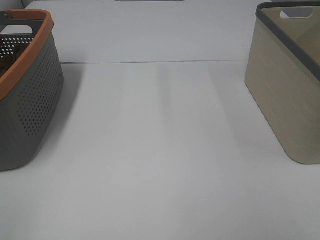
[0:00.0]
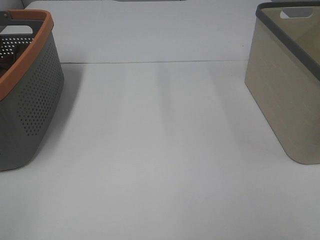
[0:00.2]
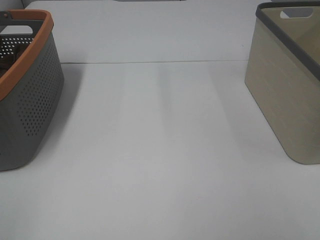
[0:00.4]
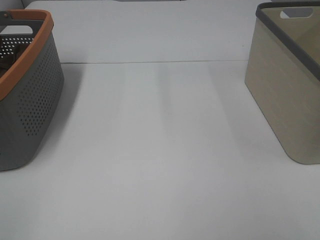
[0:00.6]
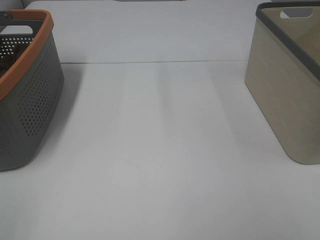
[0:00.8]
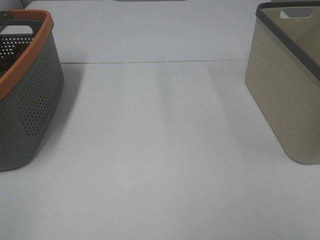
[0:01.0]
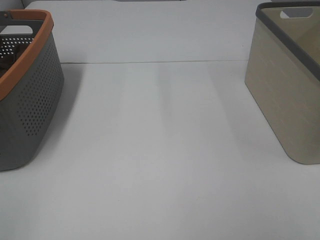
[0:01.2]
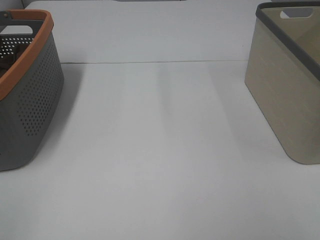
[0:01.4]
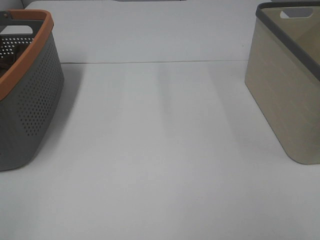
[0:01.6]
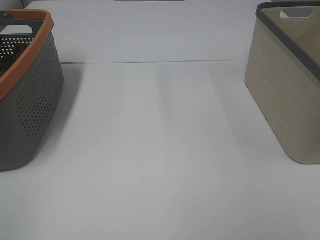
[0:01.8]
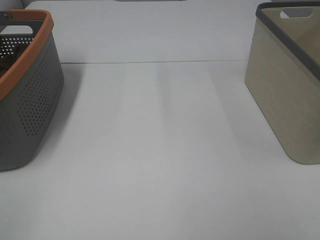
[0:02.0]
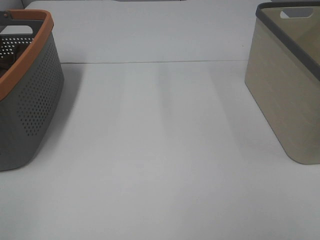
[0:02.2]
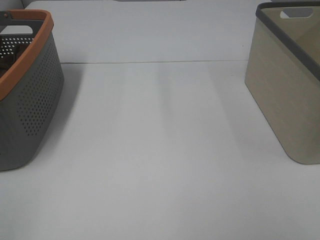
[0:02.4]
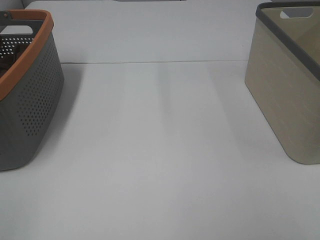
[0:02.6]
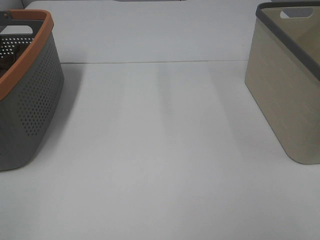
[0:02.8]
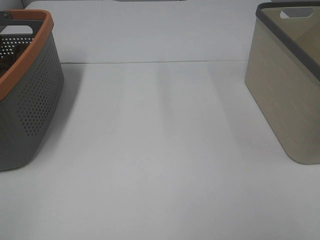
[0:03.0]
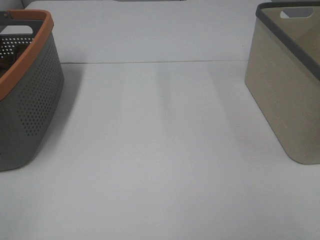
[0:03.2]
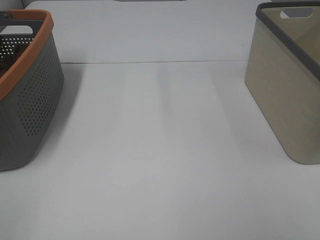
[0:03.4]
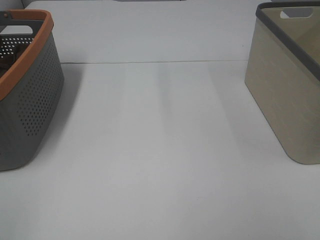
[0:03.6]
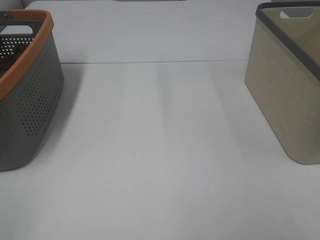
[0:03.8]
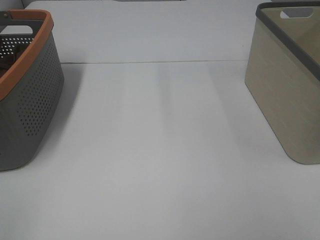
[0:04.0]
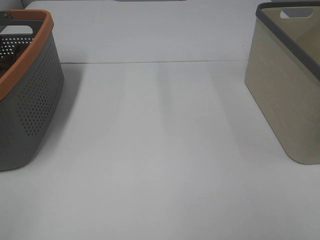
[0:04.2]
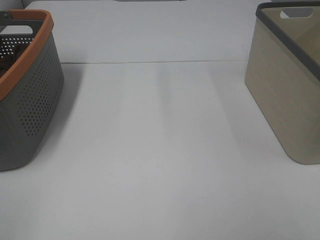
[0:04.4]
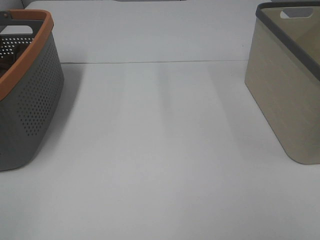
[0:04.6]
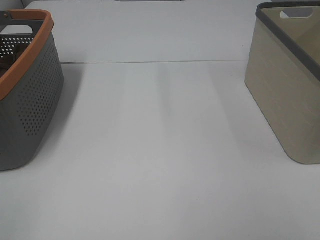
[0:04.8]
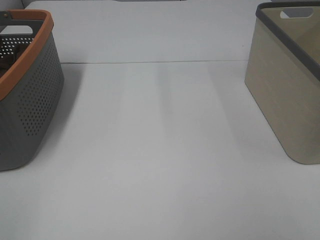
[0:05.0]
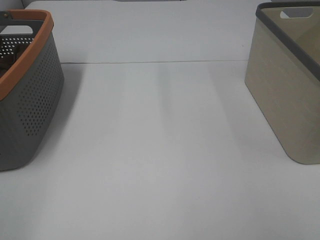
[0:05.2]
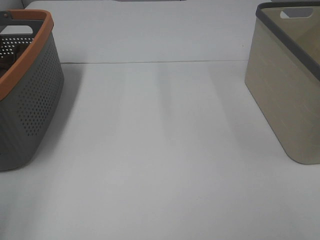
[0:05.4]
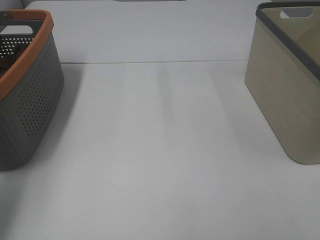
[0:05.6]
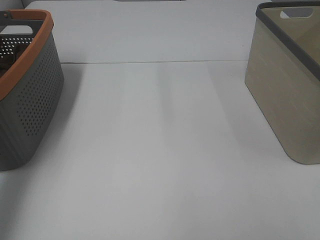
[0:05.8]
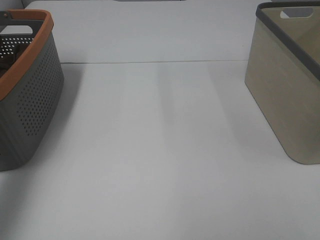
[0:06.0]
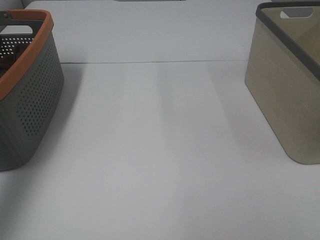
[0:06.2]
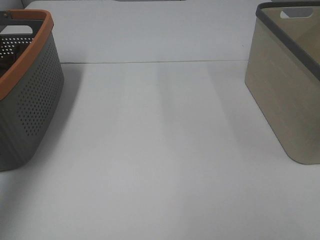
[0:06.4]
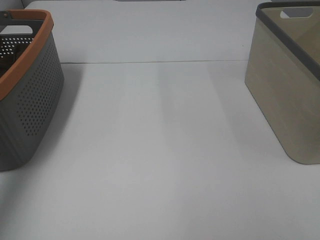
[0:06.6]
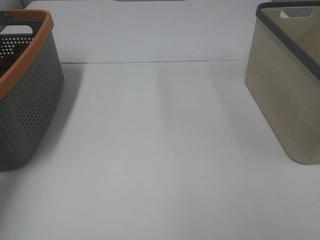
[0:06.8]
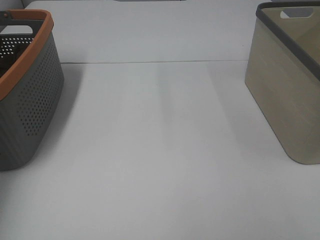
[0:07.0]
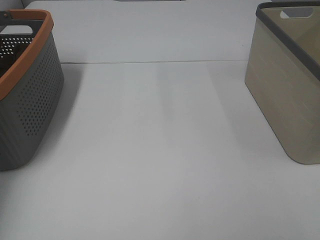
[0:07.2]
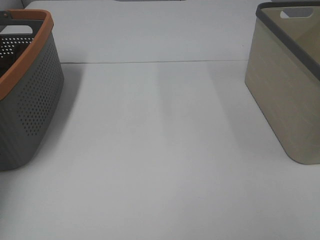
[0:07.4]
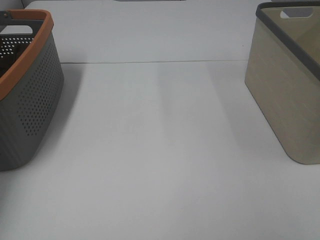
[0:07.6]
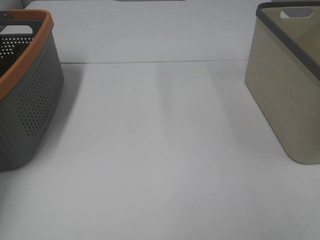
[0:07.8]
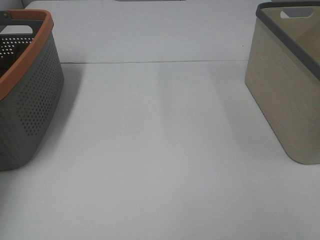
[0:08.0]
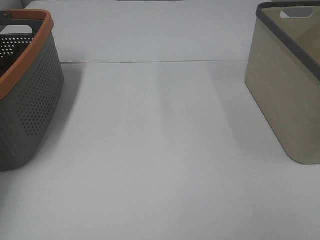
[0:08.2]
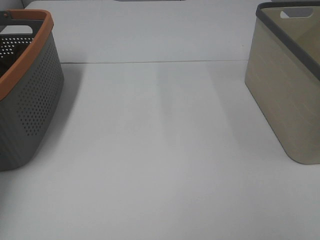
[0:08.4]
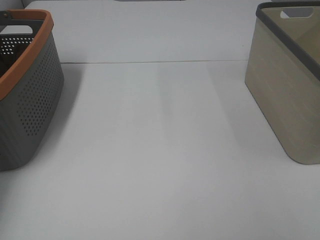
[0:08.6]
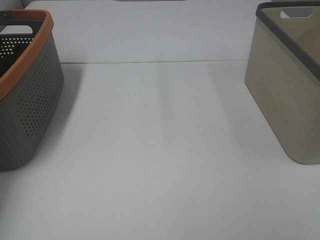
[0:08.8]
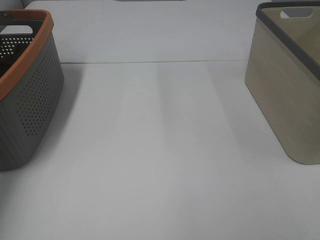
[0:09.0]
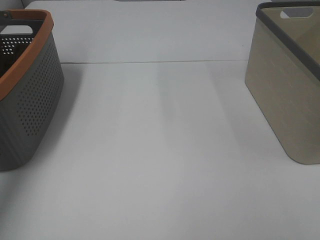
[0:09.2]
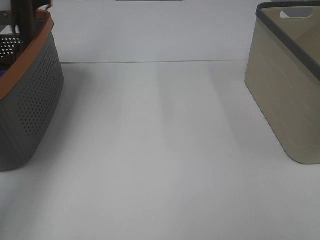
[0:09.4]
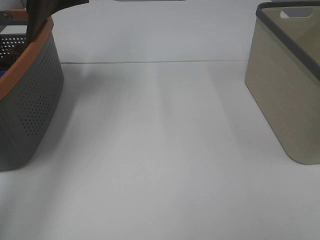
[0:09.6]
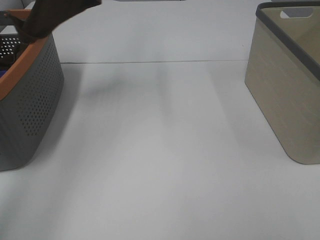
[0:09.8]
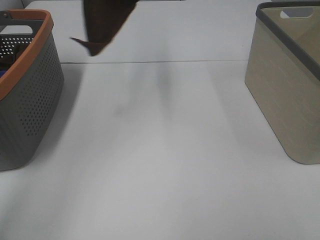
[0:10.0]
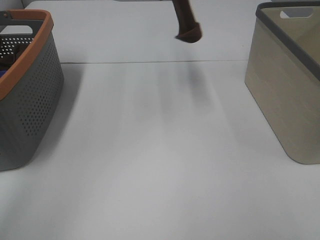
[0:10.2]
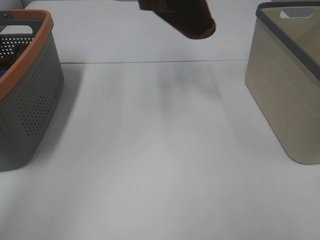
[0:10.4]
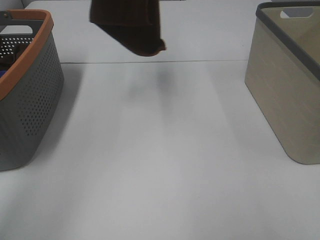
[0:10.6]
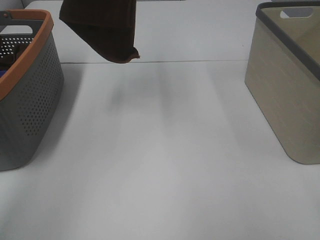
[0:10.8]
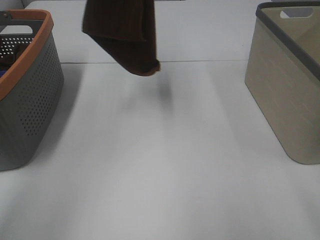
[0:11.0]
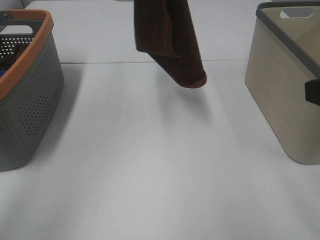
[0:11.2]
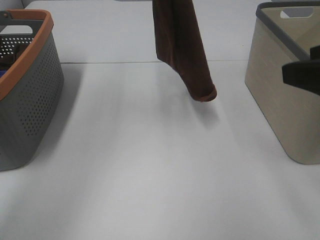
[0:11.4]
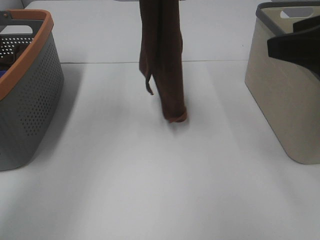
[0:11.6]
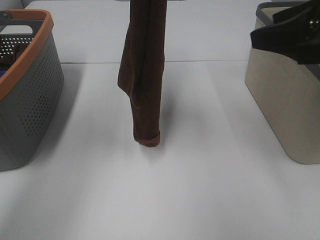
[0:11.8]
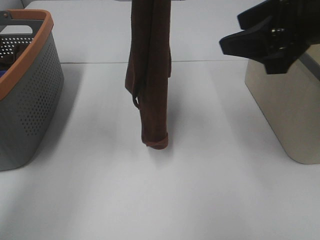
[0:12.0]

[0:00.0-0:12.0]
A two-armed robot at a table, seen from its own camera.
Task of the whole recording: Remove the towel and place it.
0:00.0 to 0:04.4: Both grippers stay put.
0:04.4 to 0:06.0: The left gripper is displaced forward by some 30 cm.
0:06.0 to 0:07.6: The left gripper moves forward, downward and to the left, some 20 cm, and closes up.
0:09.0 to 0:10.4: The left gripper shifts about 25 cm to the right and upward.
0:10.4 to 0:12.0: The right gripper travels forward by some 25 cm. Meanwhile the left gripper is displaced downward by some 5 cm.

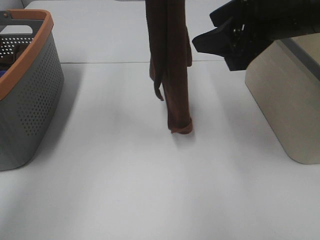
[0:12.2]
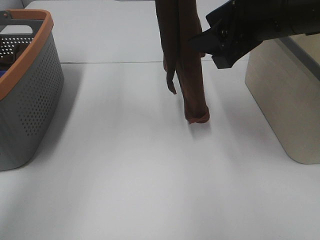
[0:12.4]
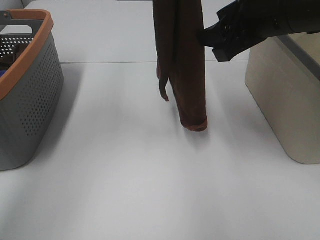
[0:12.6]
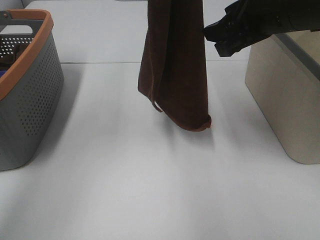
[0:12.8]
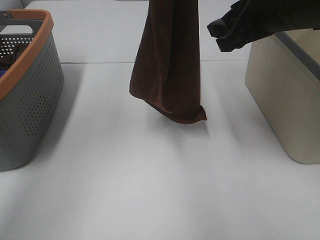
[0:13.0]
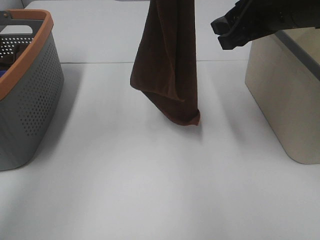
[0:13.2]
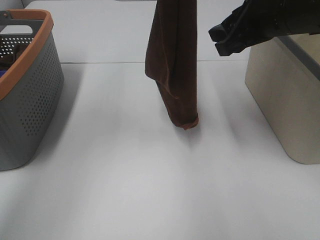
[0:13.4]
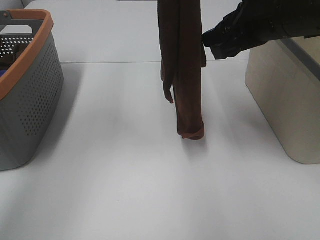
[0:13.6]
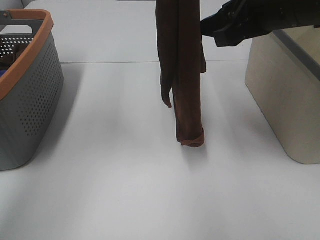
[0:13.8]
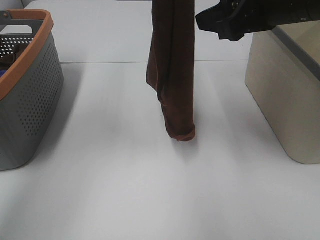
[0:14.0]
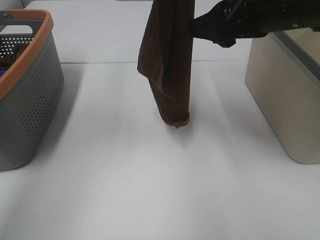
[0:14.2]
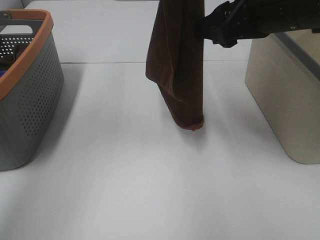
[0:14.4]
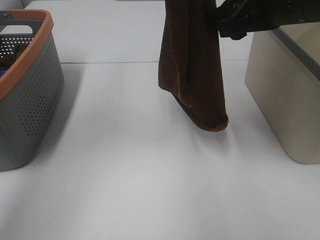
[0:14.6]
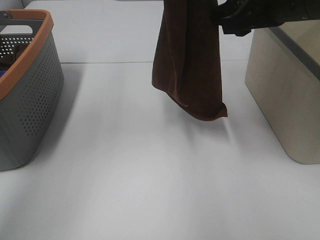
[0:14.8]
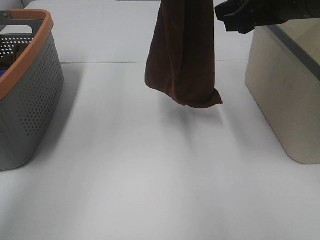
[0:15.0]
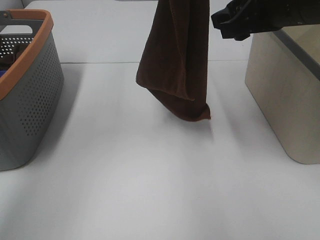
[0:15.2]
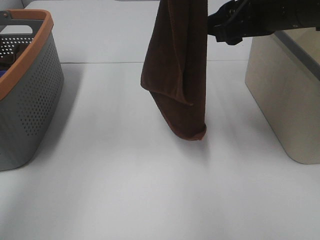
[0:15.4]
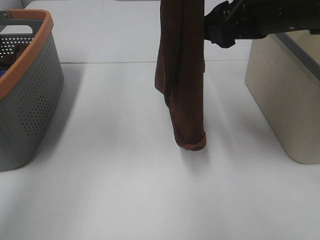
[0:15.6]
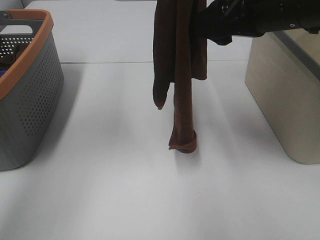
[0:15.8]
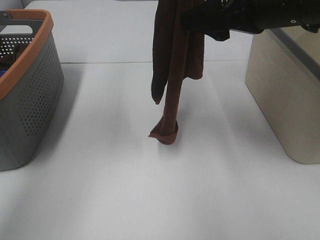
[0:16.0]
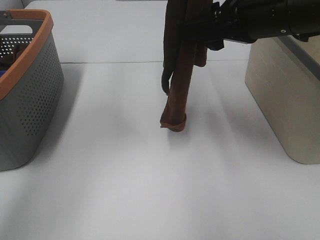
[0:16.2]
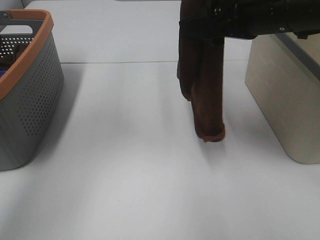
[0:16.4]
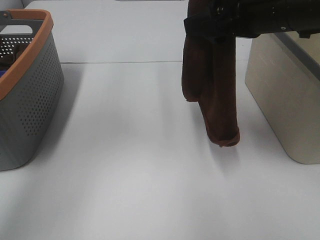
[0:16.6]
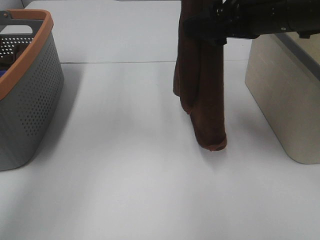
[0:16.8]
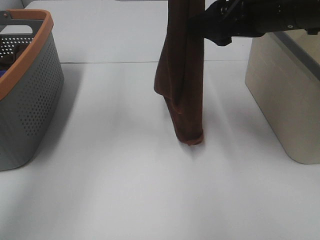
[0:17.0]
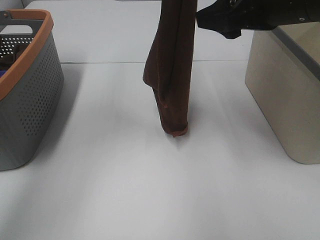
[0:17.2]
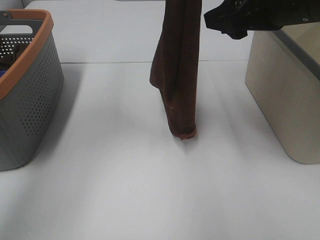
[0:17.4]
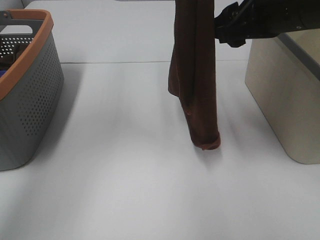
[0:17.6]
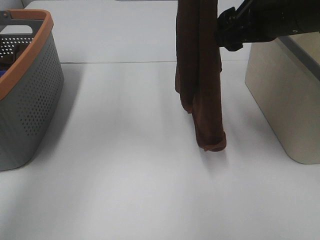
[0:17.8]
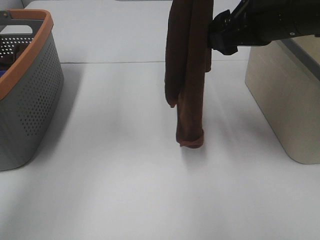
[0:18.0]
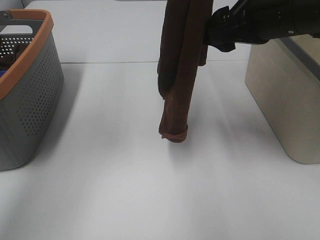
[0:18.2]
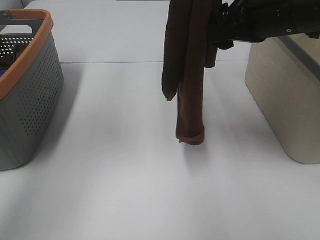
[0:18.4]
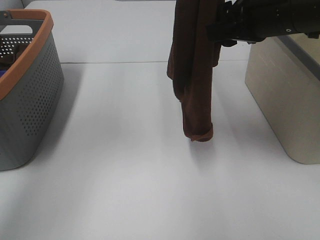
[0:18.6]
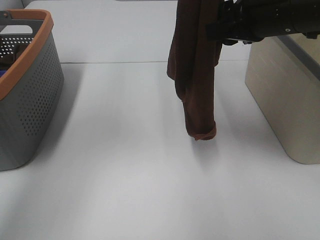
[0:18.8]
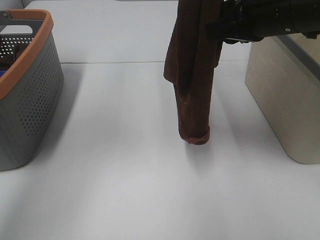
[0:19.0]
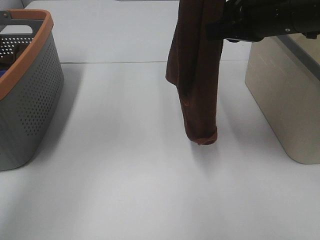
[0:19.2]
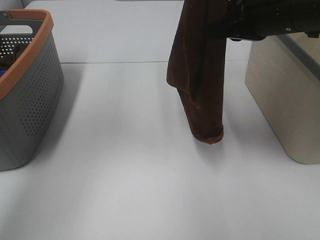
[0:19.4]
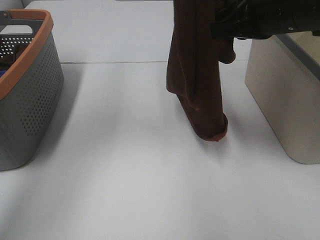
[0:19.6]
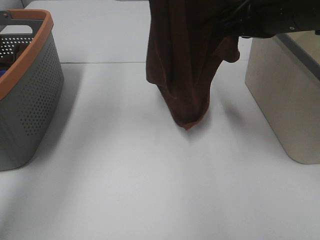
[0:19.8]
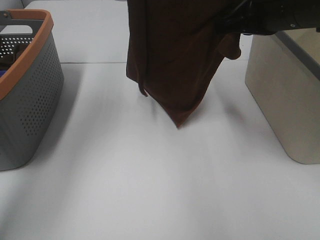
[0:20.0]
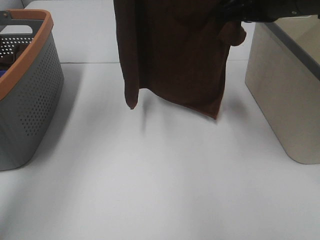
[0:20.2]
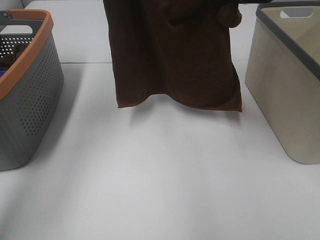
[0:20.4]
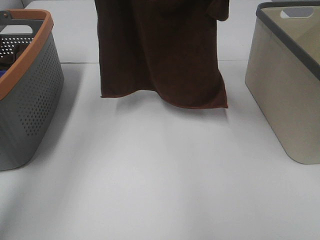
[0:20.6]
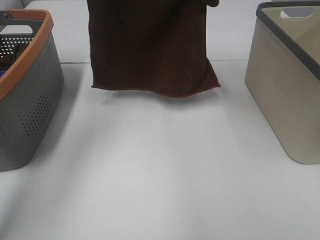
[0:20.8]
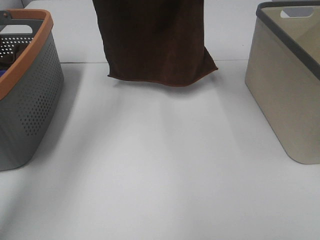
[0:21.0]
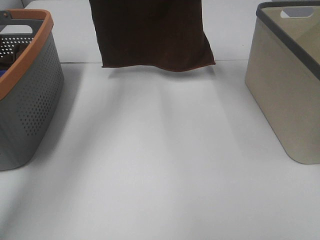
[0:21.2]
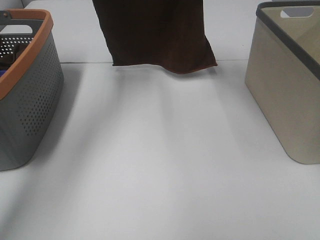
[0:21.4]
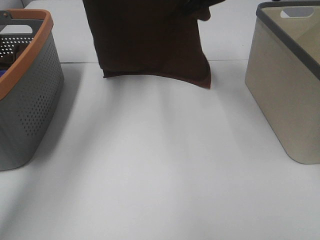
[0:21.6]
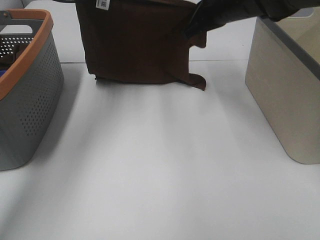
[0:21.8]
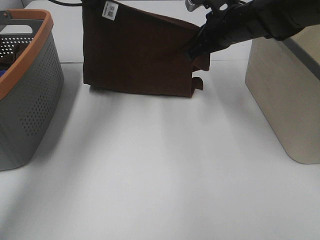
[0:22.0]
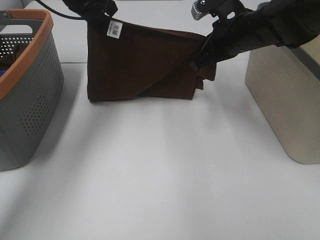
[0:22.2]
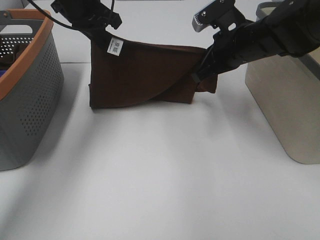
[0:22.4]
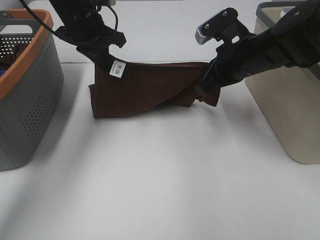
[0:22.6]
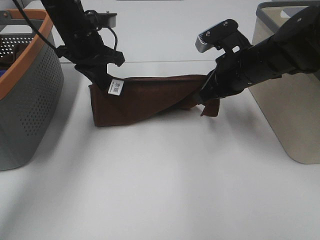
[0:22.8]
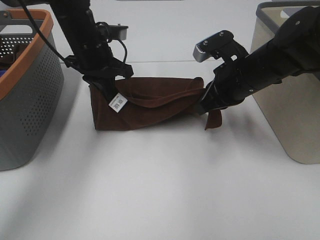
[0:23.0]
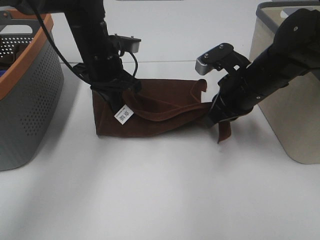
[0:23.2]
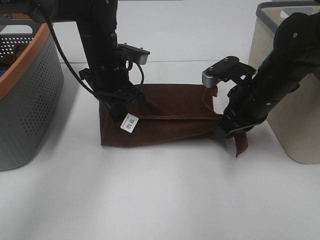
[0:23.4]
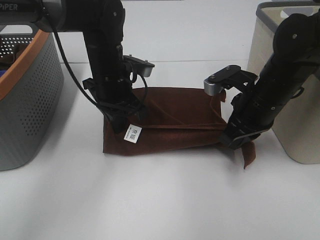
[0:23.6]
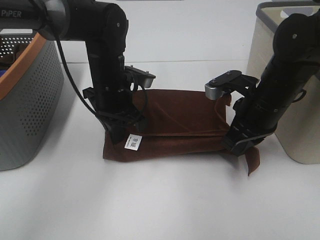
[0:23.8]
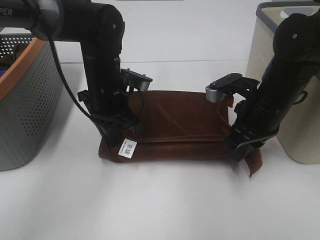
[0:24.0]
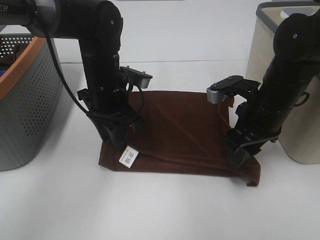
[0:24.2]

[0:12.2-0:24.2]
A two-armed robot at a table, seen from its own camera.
Task of the whole recording: Remove the towel and place it.
Step, 0:12.2 to 0:16.6: Right hand: grab a corner of the brown towel and straighten it.
Step, 0:16.8 to 0:19.4: Left hand: spread the brown towel flat on the table.
Step, 0:16.8 to 0:19.4: Right hand: spread the brown towel flat on the table.
0:13.8 to 0:15.2: There are only small adjustments of the grippers.
0:16.6 to 0:18.2: The grippers move only a little.
0:18.2 to 0:19.8: The right gripper closes its fingers, while the left gripper changes place by about 5 cm.
0:19.8 to 0:21.2: The right gripper moves forward, about 15 cm, while the left gripper shifts some 10 cm forward and downward.
0:21.2 to 0:22.6: The left gripper goes approximately 15 cm downward. The right gripper goes some 15 cm downward and backward.
0:22.6 to 0:24.2: The right gripper is displaced backward by some 5 cm, and opens its fingers; the left gripper travels backward, downward and to the right by some 15 cm, and opens.
